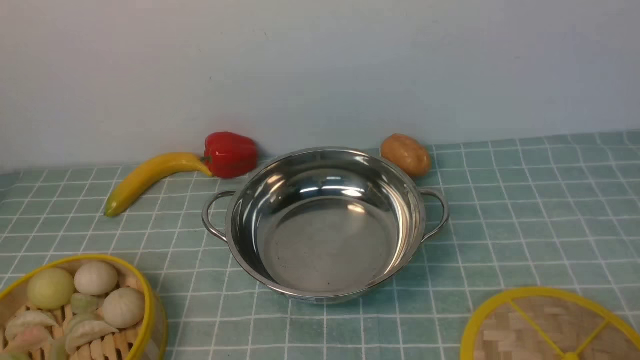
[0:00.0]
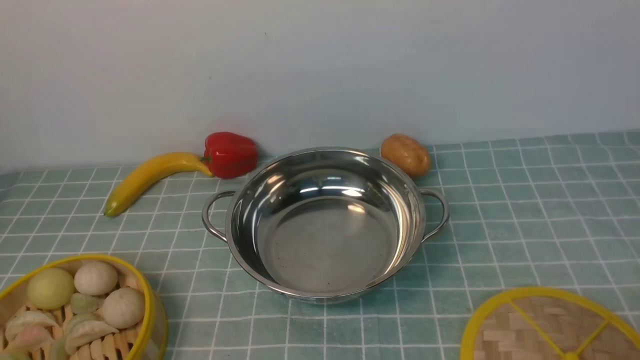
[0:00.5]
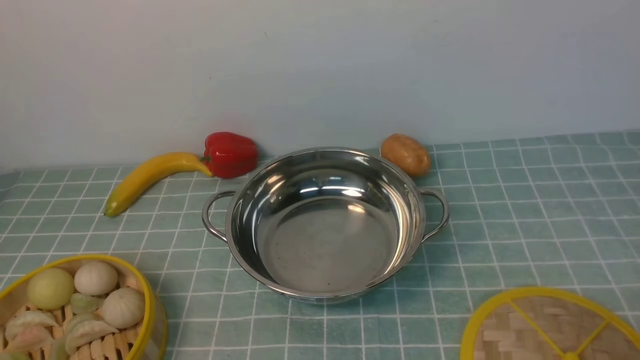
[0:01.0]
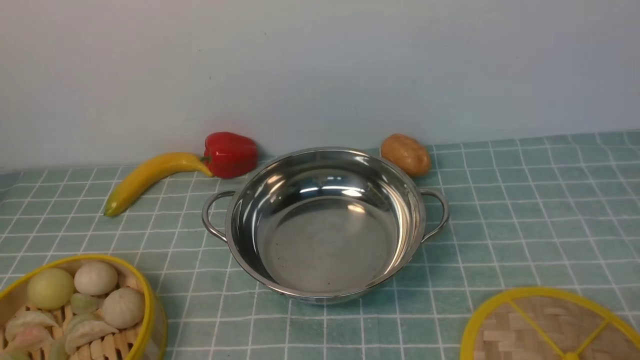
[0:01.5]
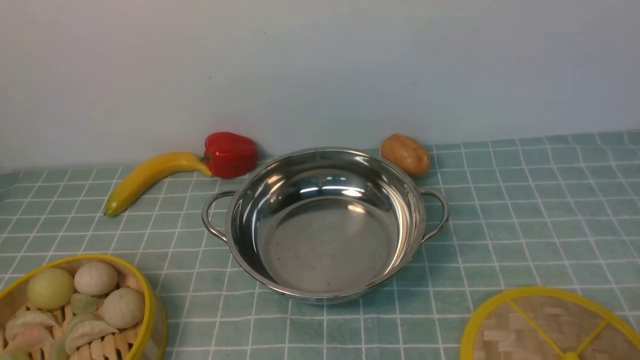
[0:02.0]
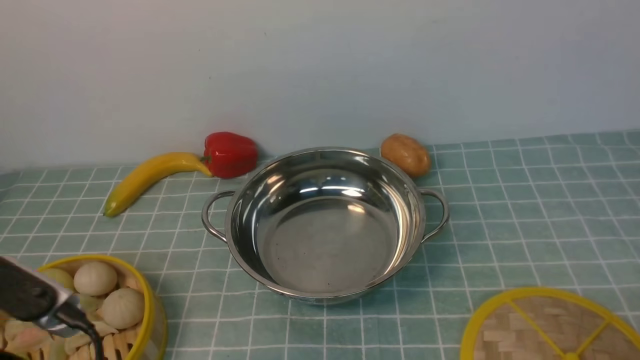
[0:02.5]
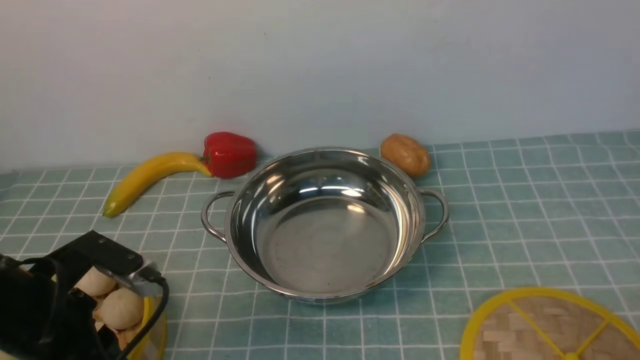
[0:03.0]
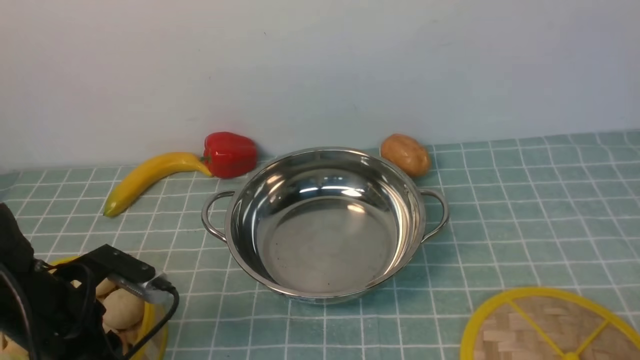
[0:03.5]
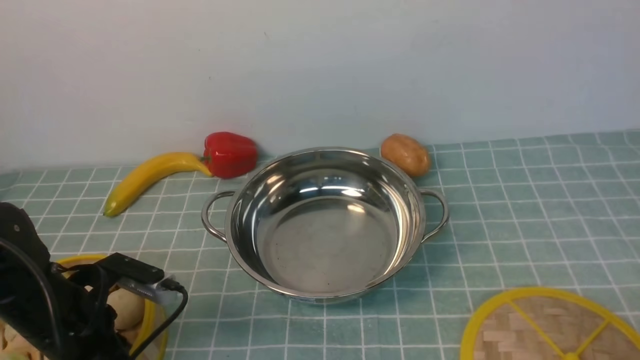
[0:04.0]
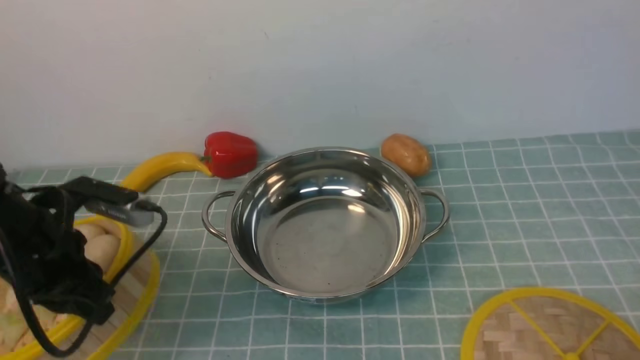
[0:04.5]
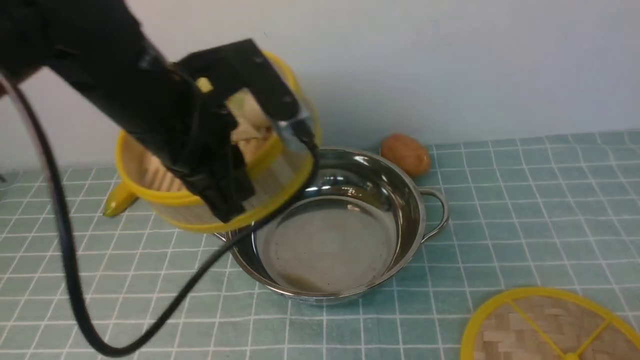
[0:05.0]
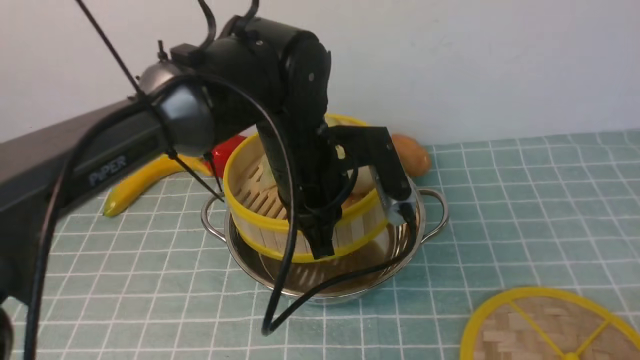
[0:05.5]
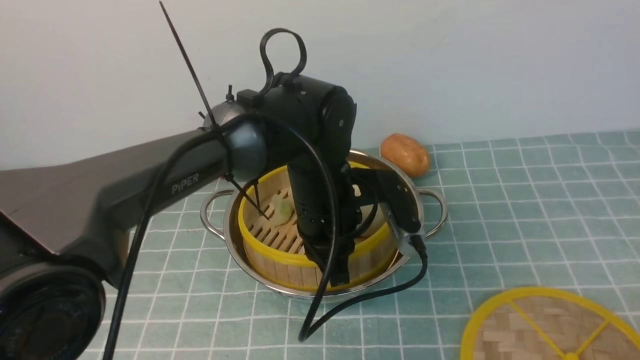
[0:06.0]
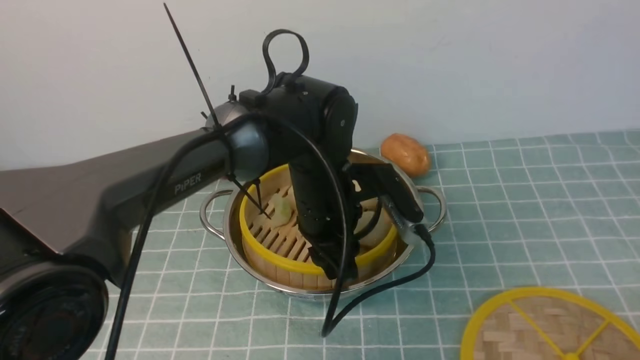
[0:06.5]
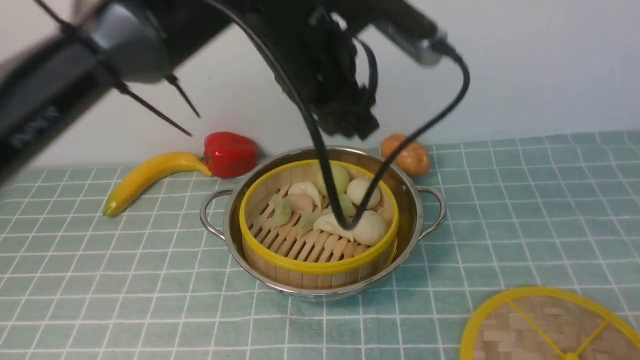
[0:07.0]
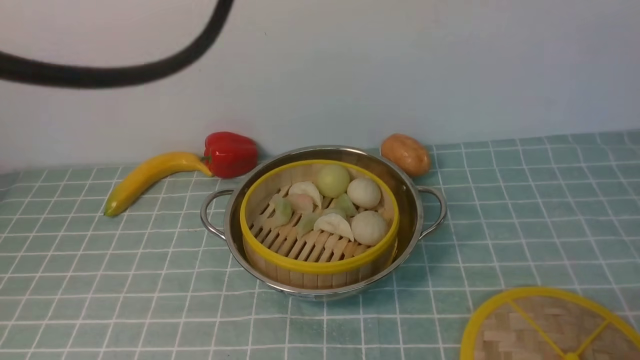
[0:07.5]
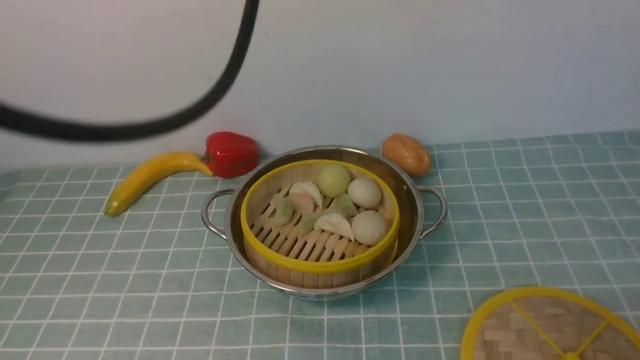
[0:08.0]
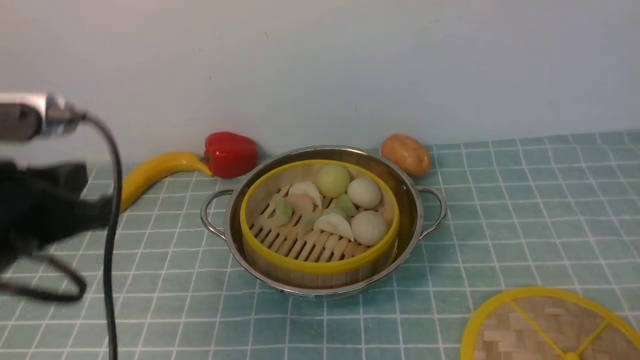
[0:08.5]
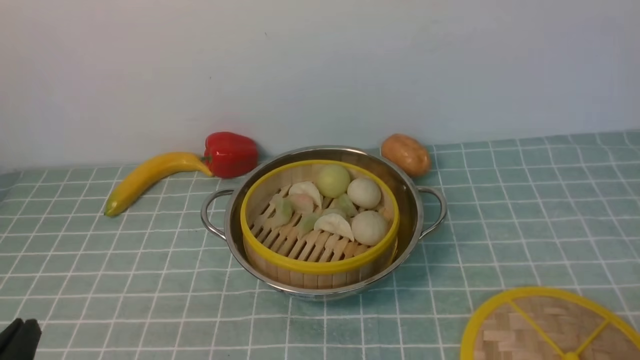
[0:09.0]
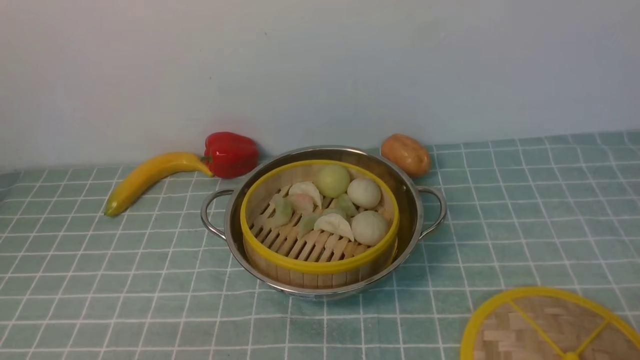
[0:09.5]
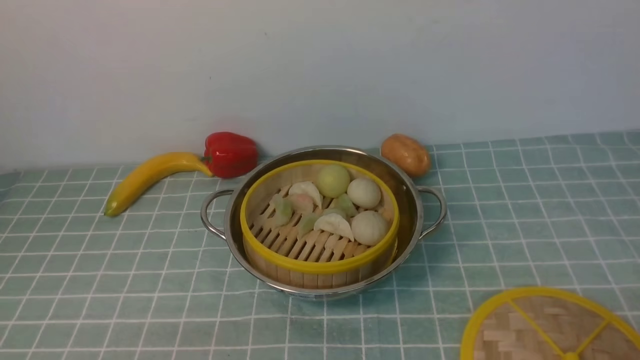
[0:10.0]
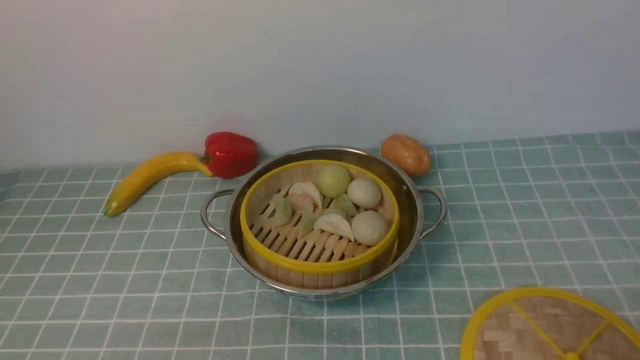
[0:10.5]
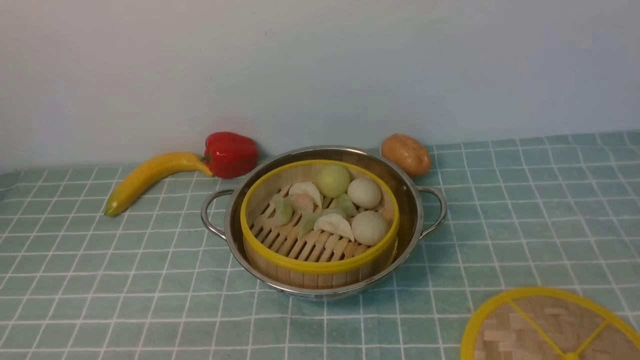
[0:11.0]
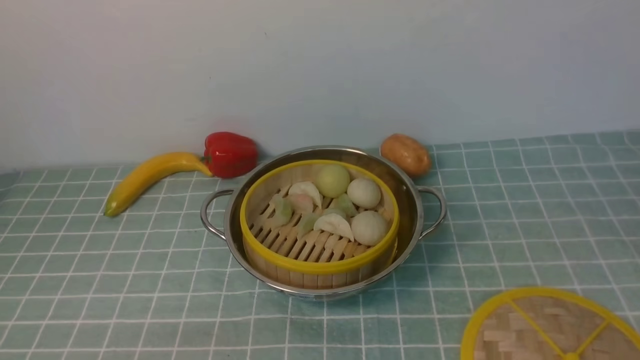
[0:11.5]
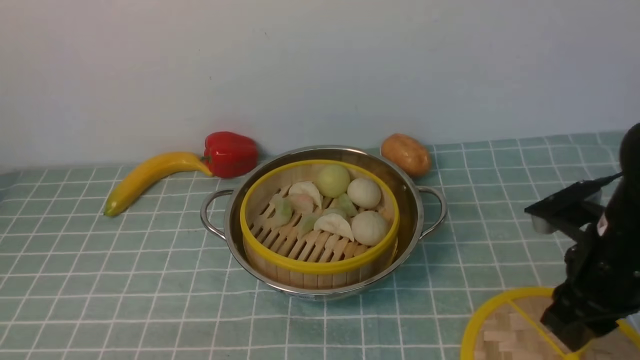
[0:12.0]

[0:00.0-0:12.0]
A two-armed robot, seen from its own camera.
Task of the whole recording: place the steamer in the pot on the blue tablecloth, and put the lid on the steamer.
Step, 0:00.0 to 0:04.5: use the left arm to lift the steamer closest to it.
Step, 0:05.0 to 0:07.0: use the left arm to put the steamer into the iron steamer pot in the middle.
0:02.0 to 0:04.0: The left gripper travels forward and downward by about 25 cm, and closes up.
0:04.0 to 0:06.0: The left gripper goes approximately 25 cm to the right and forward.
0:06.0 to 0:08.0: The left gripper shifts about 30 cm upward, and opens, then closes once more.
0:08.0 to 0:10.0: The left gripper is displaced downward, backward and to the left by approximately 40 cm, and opens up.
0:10.0 to 0:12.0: The right gripper moves forward, roughly 20 cm.

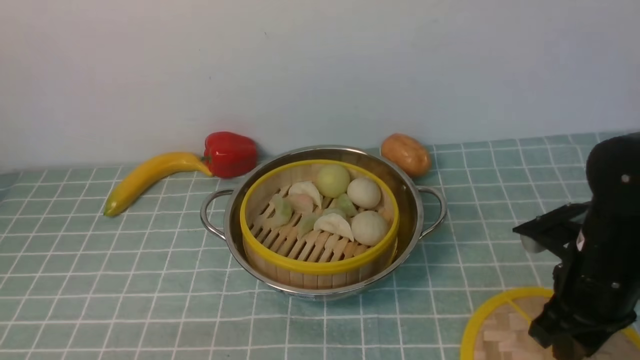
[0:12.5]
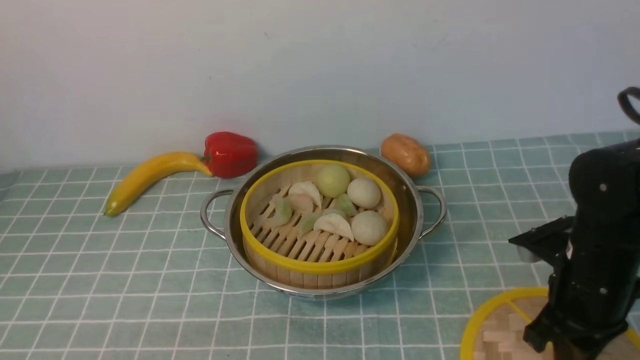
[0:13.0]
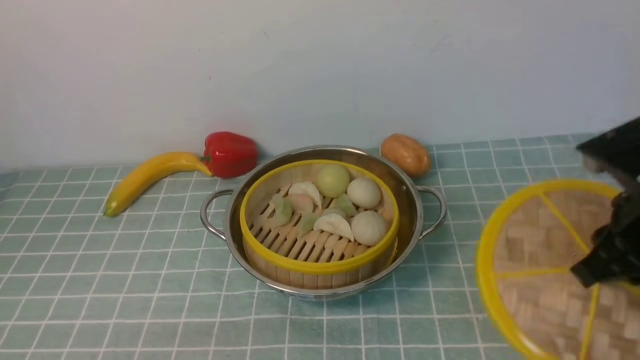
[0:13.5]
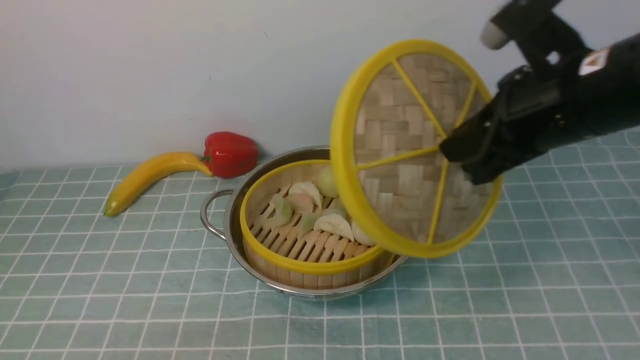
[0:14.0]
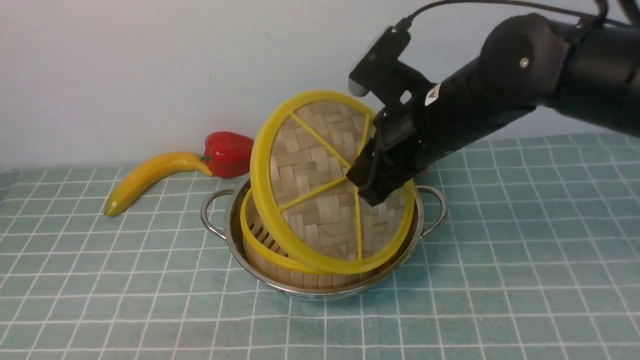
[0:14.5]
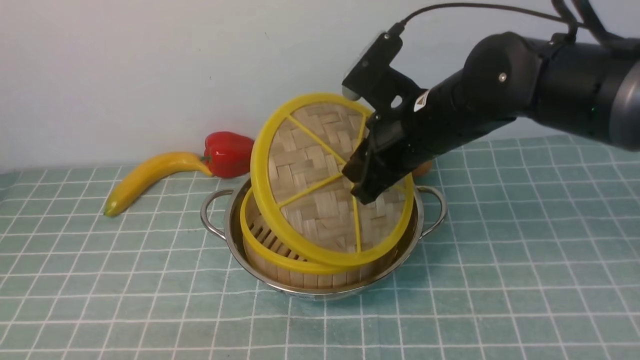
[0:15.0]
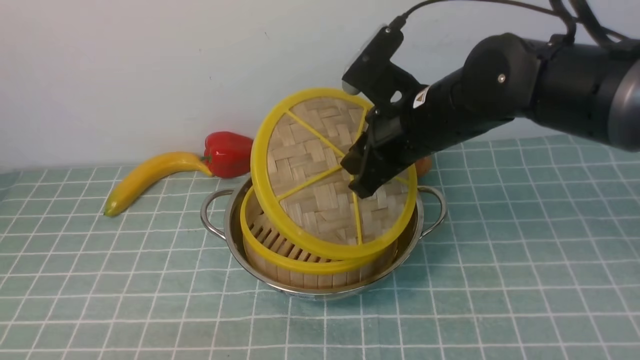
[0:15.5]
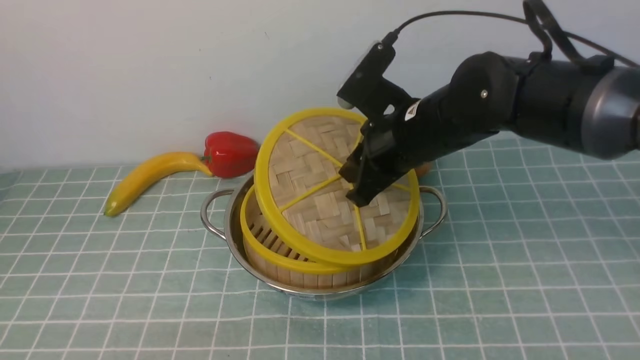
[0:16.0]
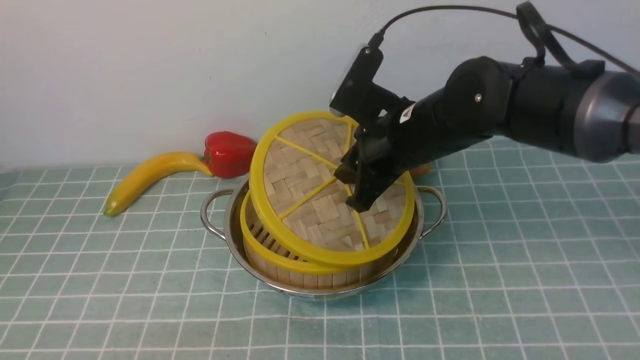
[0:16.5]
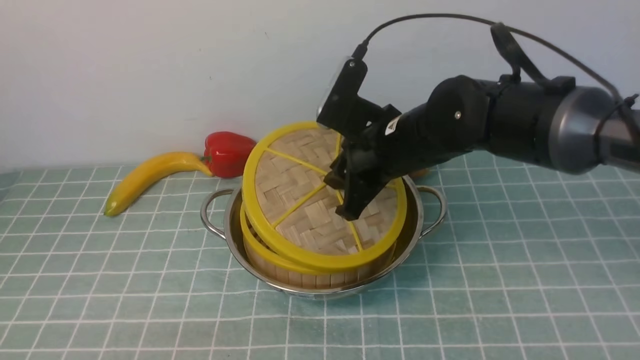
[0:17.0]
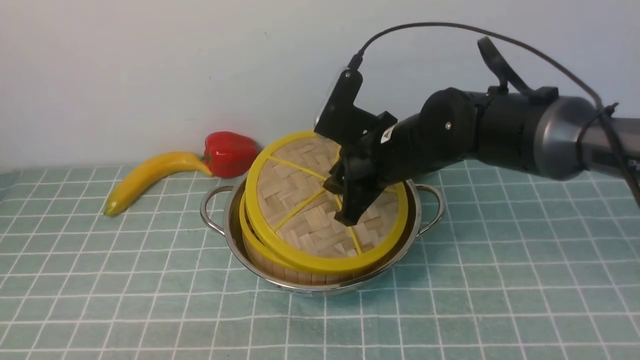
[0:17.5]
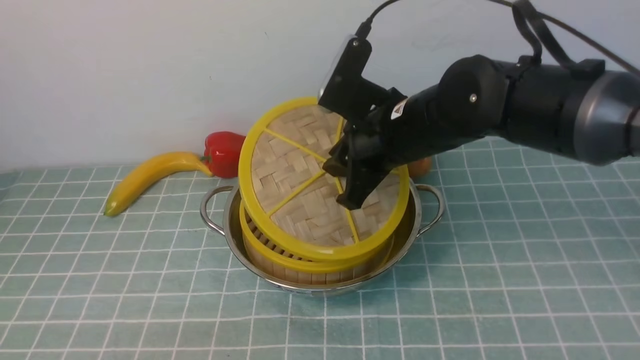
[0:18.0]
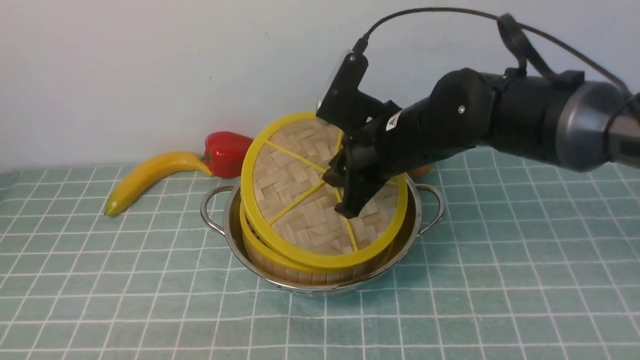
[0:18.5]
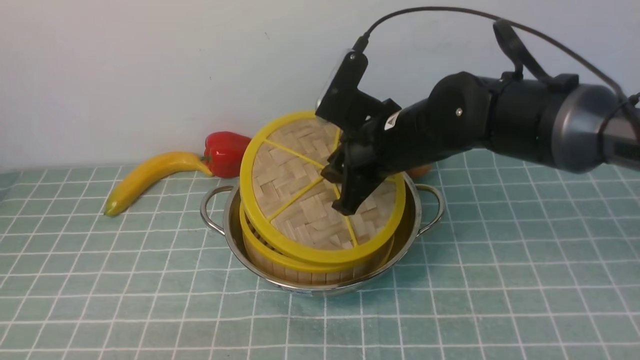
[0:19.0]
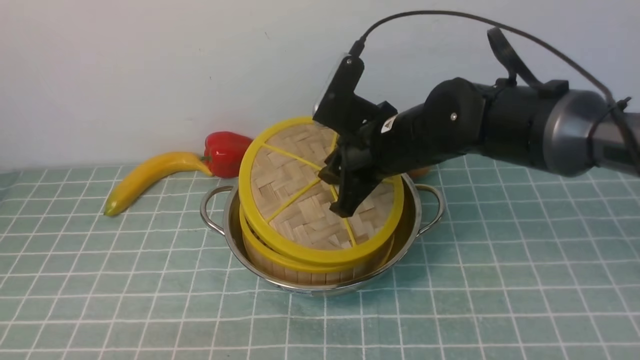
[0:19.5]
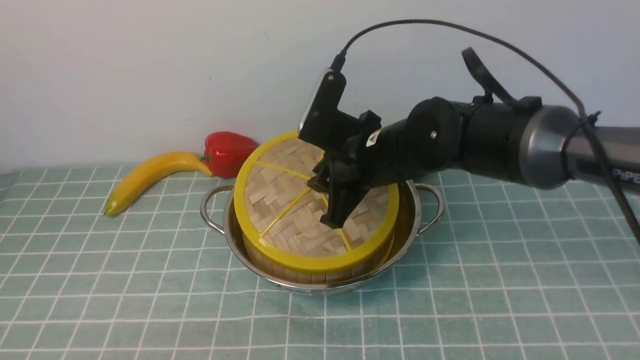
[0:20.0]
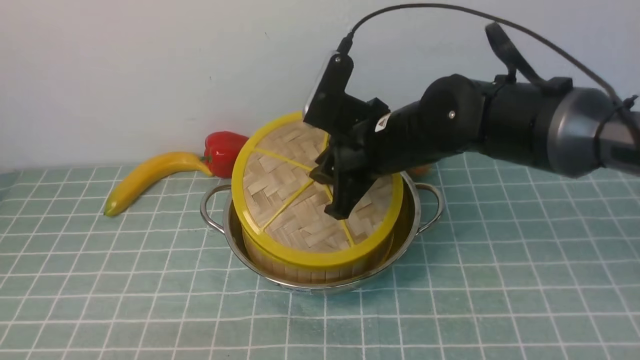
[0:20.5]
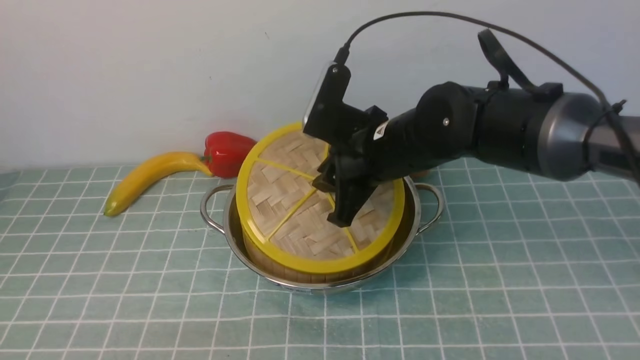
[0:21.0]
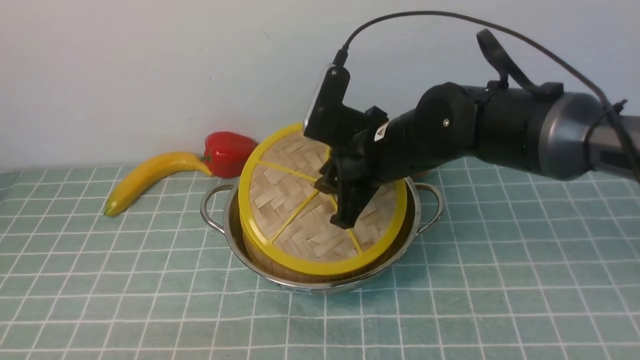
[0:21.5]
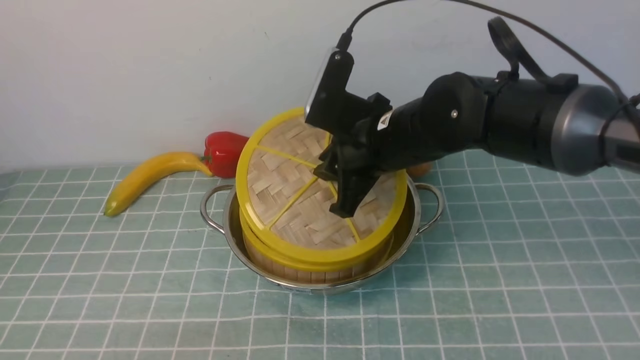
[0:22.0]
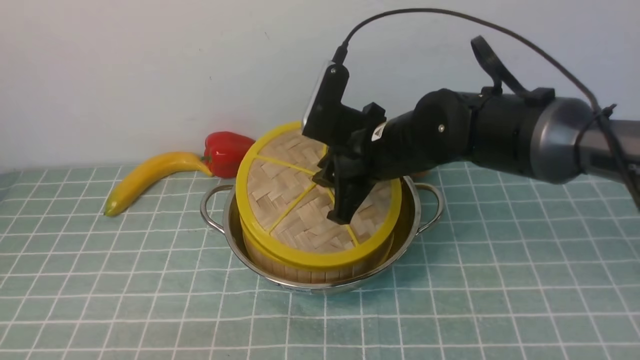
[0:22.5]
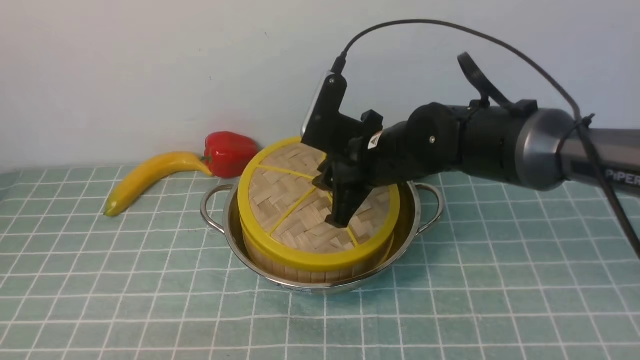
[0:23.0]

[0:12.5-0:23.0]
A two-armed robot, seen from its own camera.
Task of the whole recording: place the steamer in the pot on the blue tablecloth, and put the lid on the steamer.
0:12.5 to 0:14.5: The right gripper heads to the left, upward and forward, covering some 20 cm, and closes its fingers.
0:14.5 to 0:16.5: The right gripper moves approximately 5 cm.
0:16.5 to 0:23.0: The grippers move only a little.
